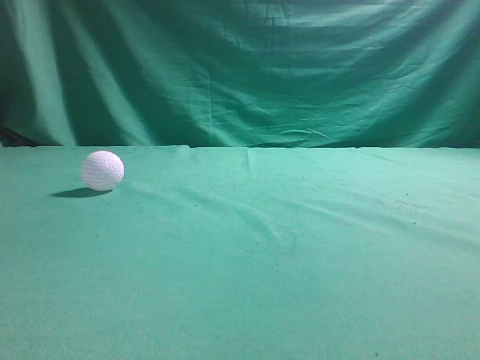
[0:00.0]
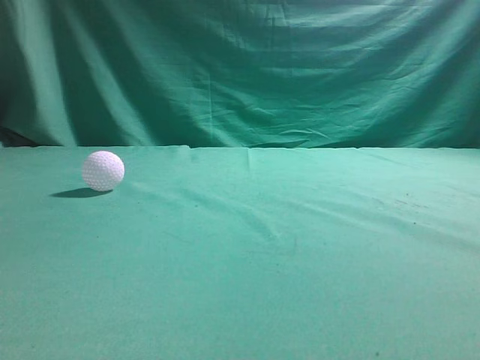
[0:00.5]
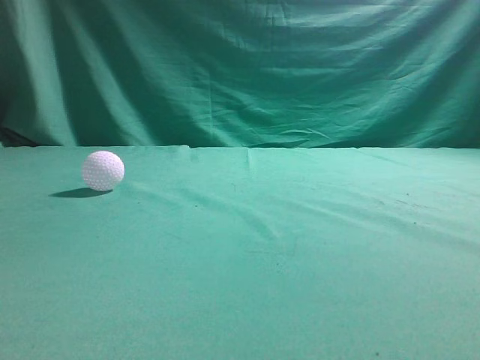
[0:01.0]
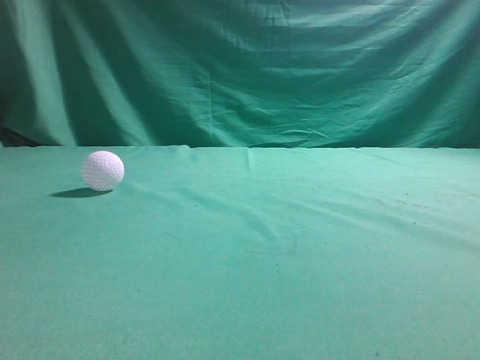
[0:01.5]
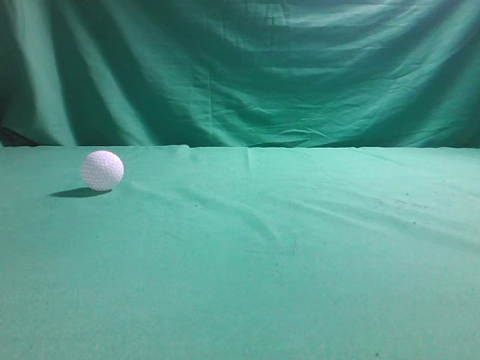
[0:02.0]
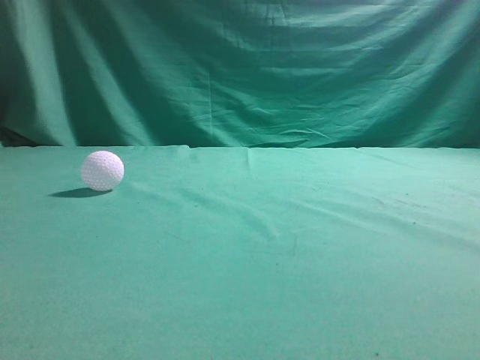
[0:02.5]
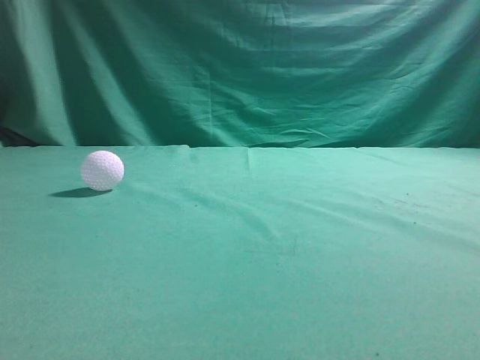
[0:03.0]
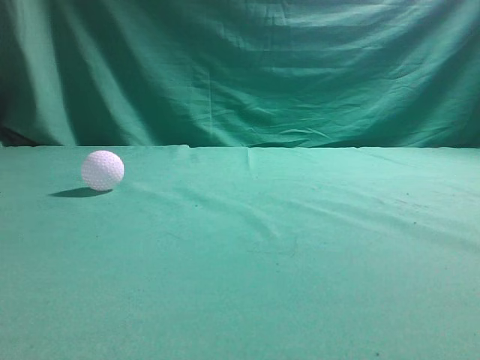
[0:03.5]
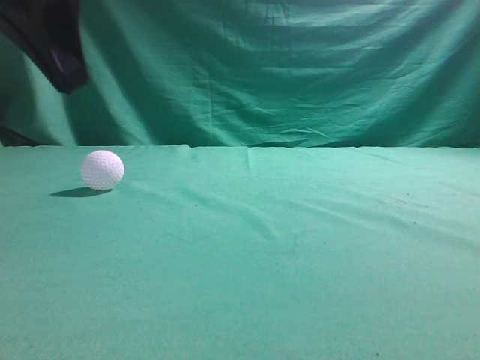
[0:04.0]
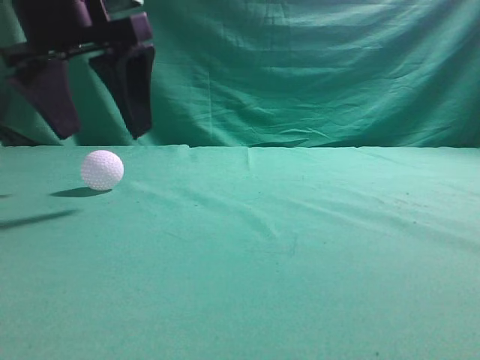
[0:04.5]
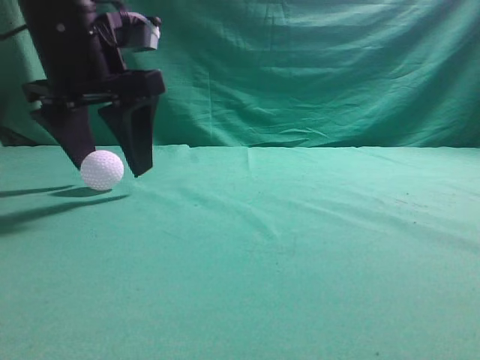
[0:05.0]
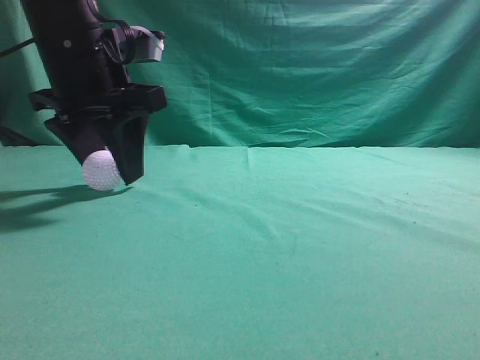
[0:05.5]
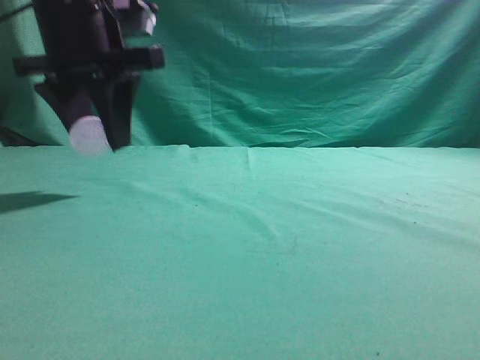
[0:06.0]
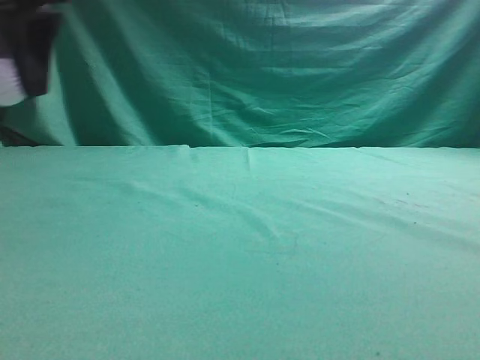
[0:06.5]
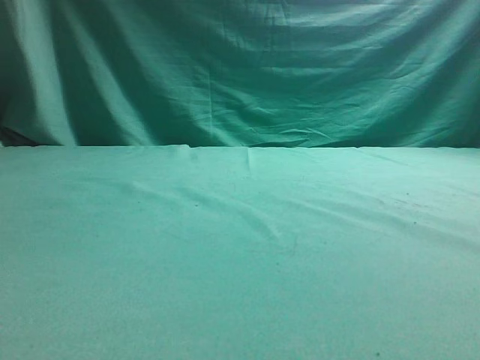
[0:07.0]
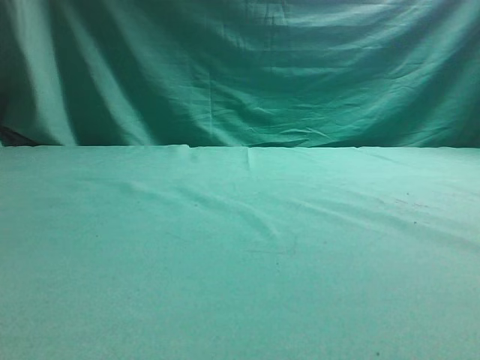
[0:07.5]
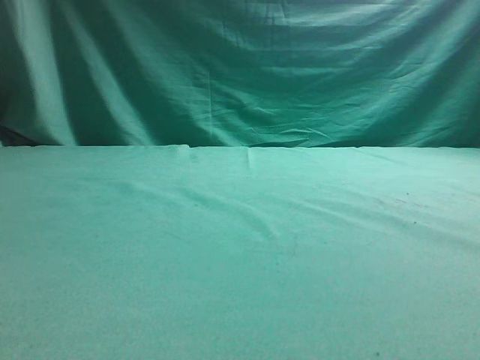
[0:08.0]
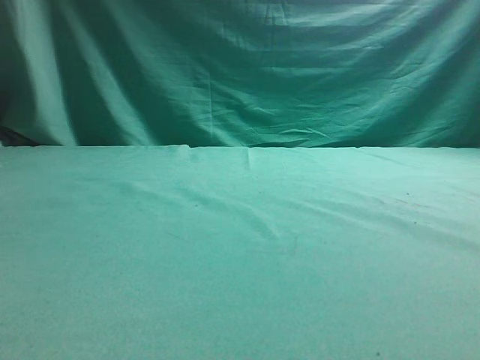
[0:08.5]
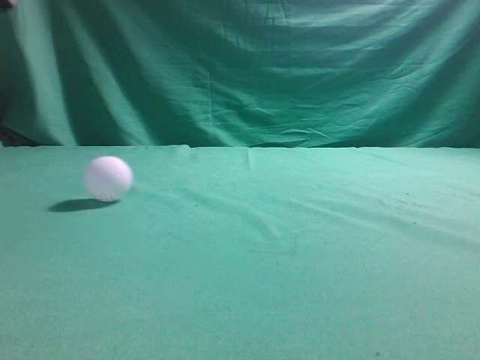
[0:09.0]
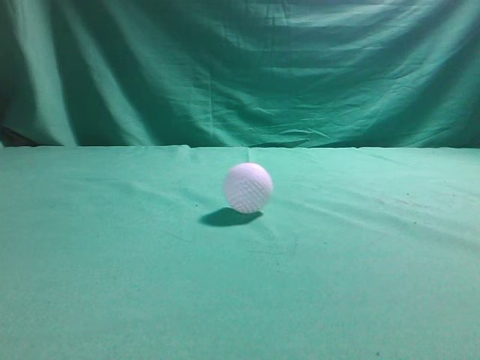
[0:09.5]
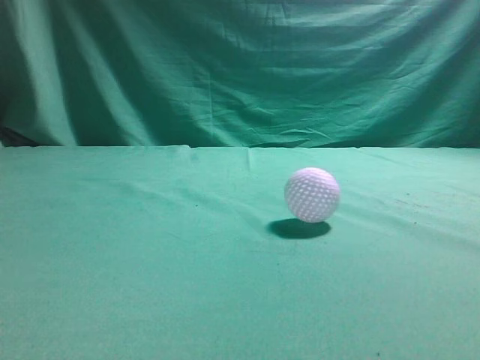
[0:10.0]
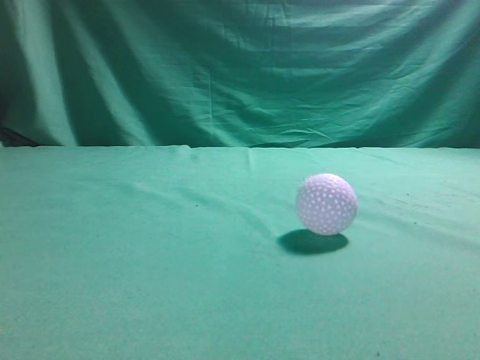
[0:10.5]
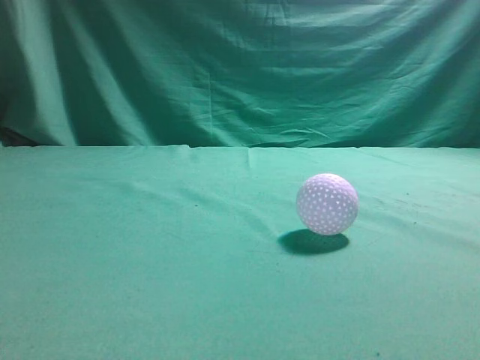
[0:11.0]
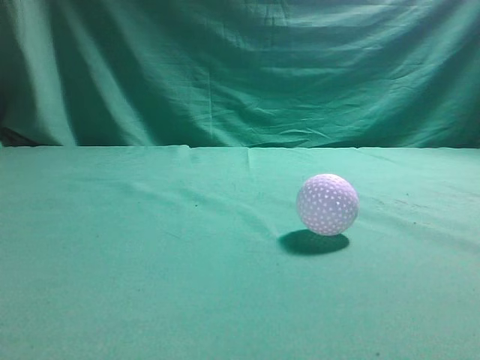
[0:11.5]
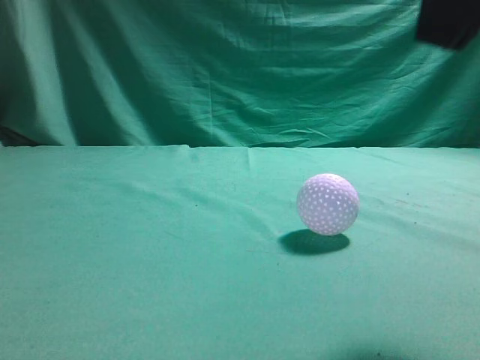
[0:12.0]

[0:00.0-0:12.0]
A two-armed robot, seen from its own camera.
Task of the whole recording: pick up the ball and place it on the plate, then pick up the ball from the plate and put it in the center of the table.
Step, 0:00.0 to 0:05.5: Grab the spherical object with your left arm.
Step, 0:06.0 to 0:08.0: Place the sphere on the white object.
0:02.0 to 0:04.0: The left gripper shifts about 25 cm forward and to the right.
0:04.0 to 0:06.0: The left gripper is displaced forward by roughly 10 cm, and opens up.
0:06.0 to 0:08.0: The left gripper shifts some 20 cm to the left.
0:08.0 to 0:10.0: The left gripper is displaced backward, upward and to the right by about 25 cm, and closes.
0:10.0 to 0:12.0: The right gripper goes approximately 20 cm to the left and forward, while the left gripper moves downward and backward, some 10 cm.

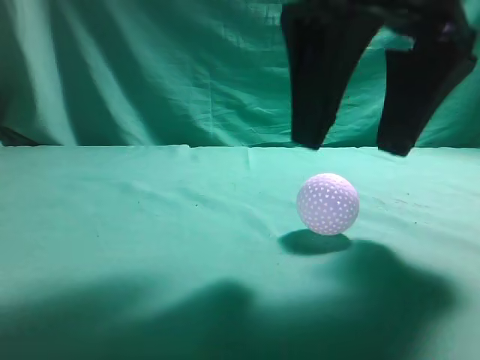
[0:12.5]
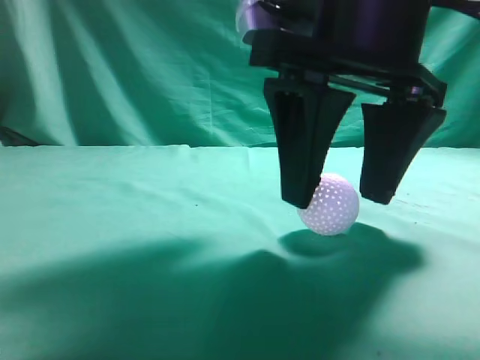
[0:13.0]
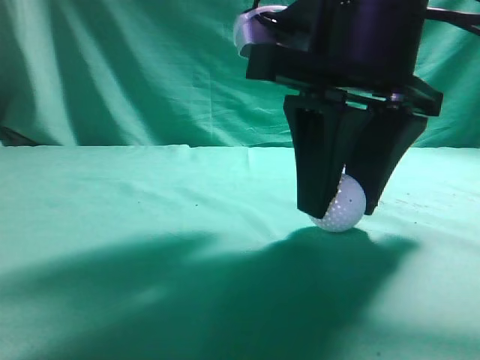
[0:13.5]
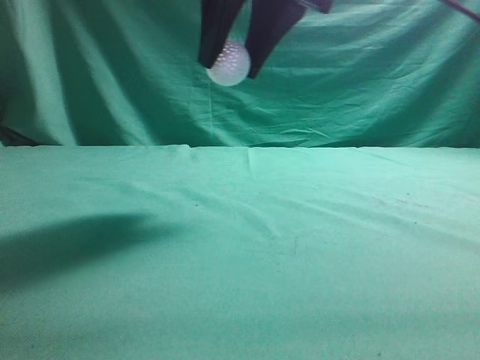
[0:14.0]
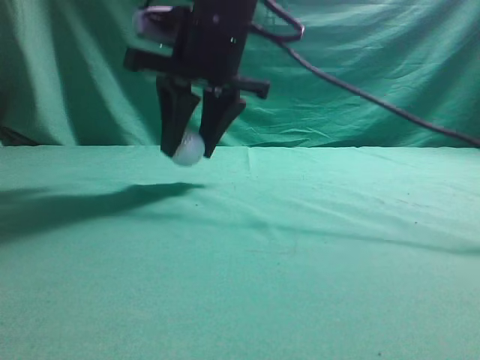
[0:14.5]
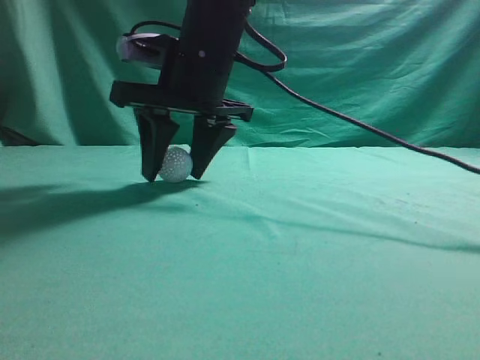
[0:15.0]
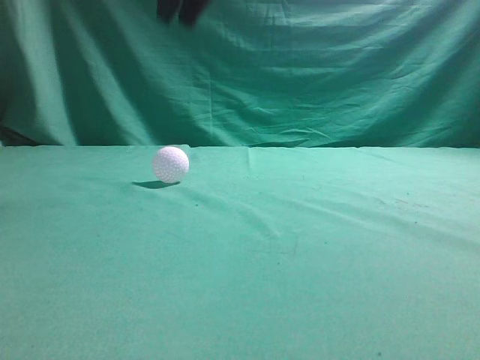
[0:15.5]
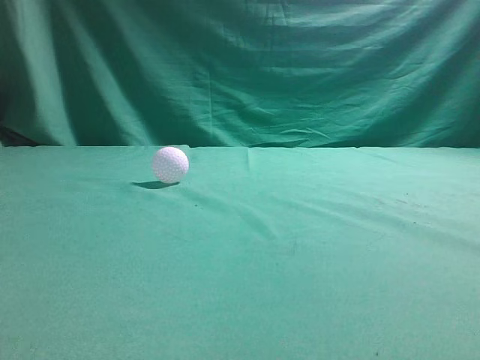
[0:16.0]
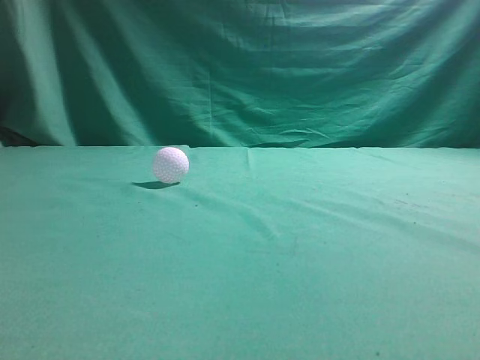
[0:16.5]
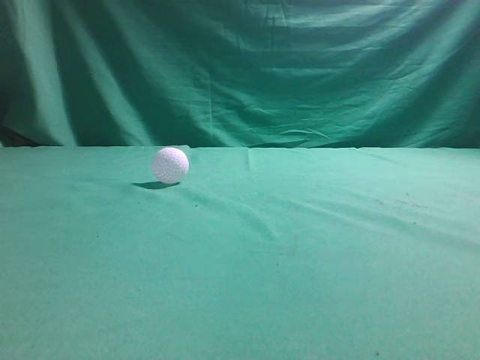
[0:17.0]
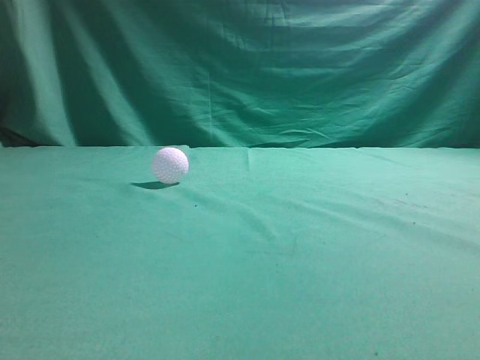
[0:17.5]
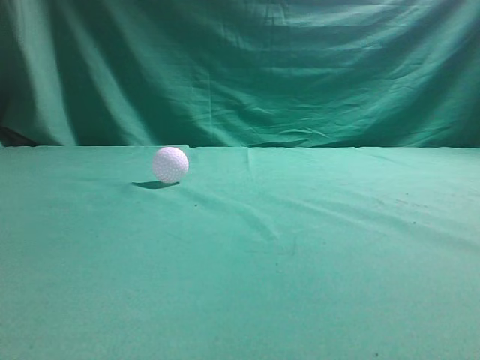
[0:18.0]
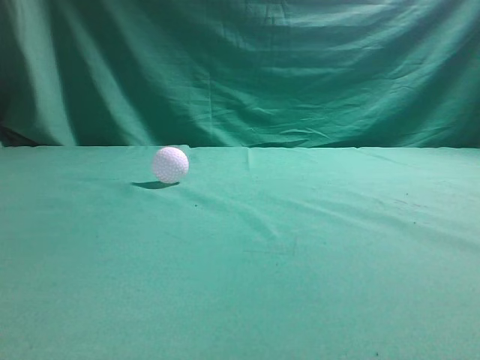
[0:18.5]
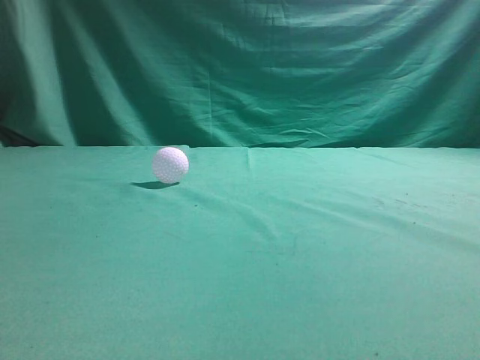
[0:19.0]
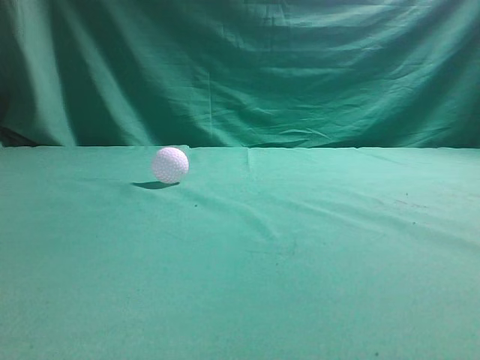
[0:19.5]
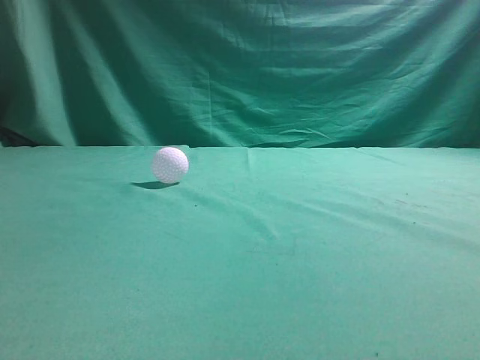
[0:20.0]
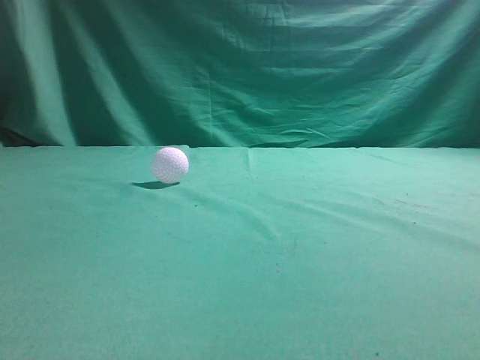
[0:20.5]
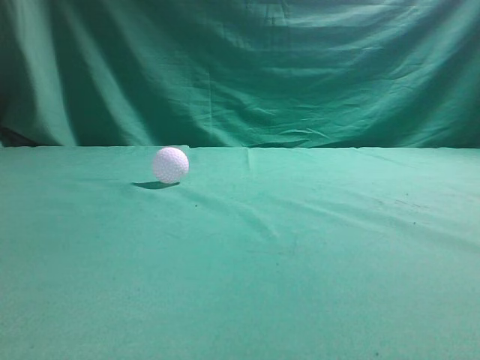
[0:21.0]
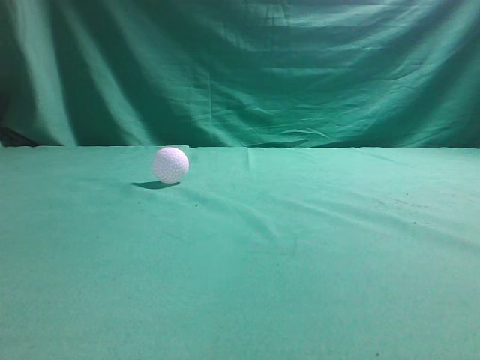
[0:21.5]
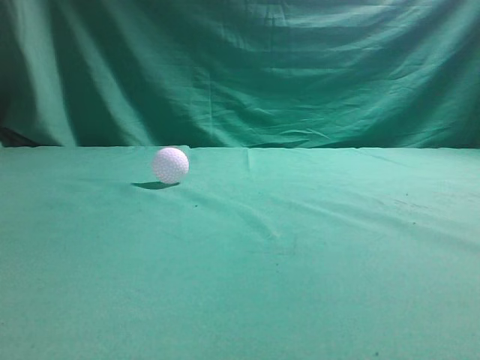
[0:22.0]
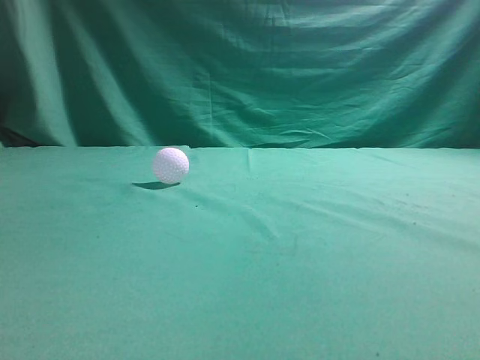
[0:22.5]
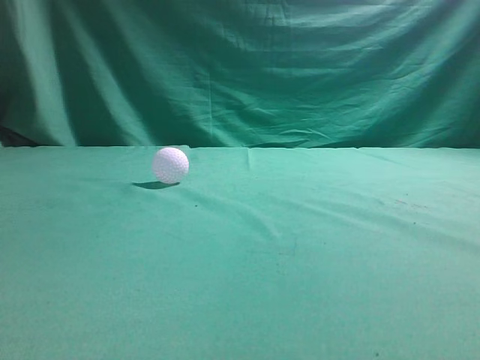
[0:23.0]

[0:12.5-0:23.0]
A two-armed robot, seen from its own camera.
Task of the whole recording: pick up the ball and place it on the plate, then pick up the ball from the plate and put it in the center of the table.
Step, 0:14.0 to 0:15.0: Put the picked-up object on the table.
0:12.5 to 0:14.5: The right gripper travels forward and to the left by approximately 20 cm, and closes.
0:14.5 to 0:16.5: The right gripper moves upward, backward and to the right, about 40 cm, and closes.
